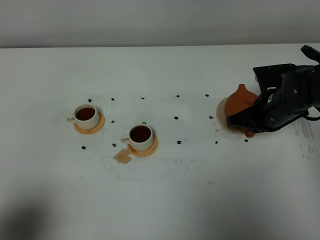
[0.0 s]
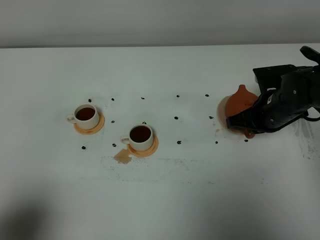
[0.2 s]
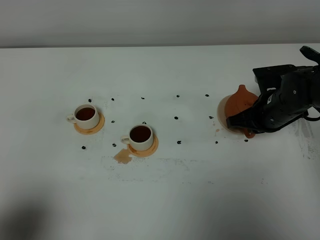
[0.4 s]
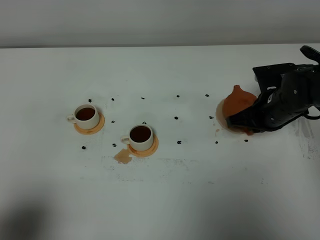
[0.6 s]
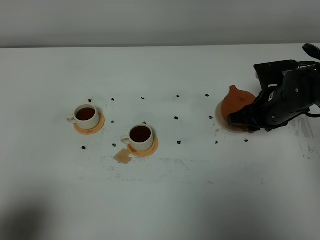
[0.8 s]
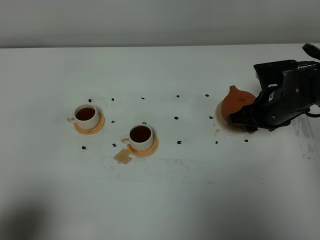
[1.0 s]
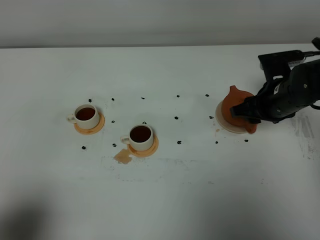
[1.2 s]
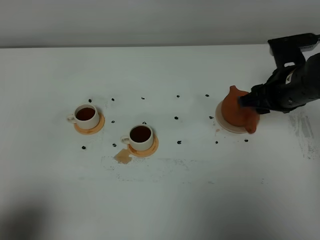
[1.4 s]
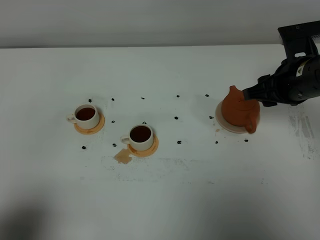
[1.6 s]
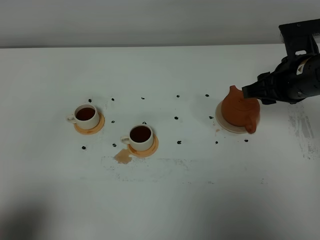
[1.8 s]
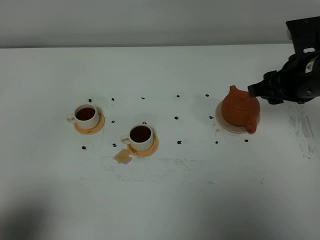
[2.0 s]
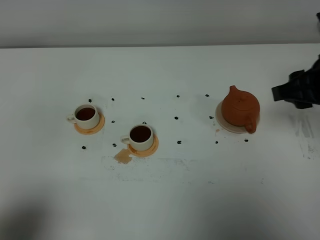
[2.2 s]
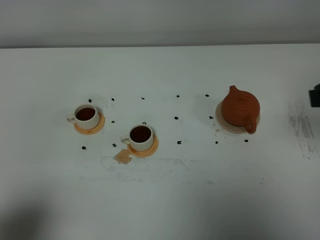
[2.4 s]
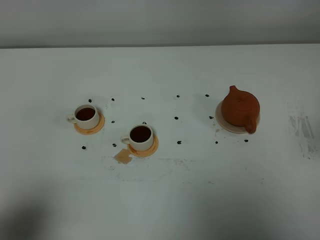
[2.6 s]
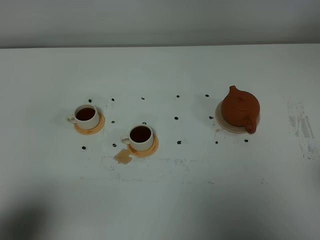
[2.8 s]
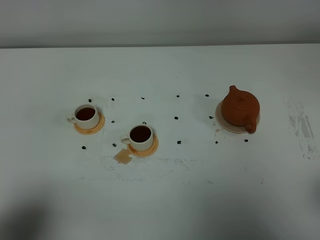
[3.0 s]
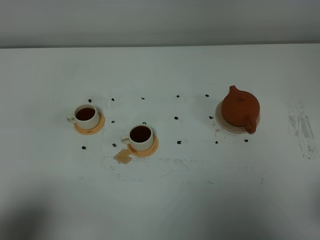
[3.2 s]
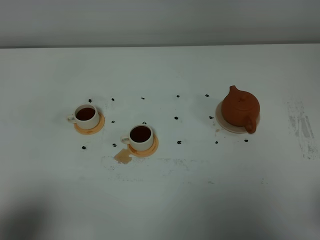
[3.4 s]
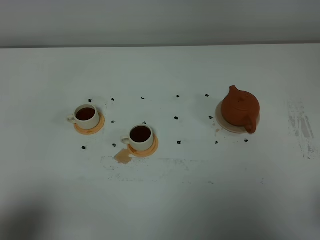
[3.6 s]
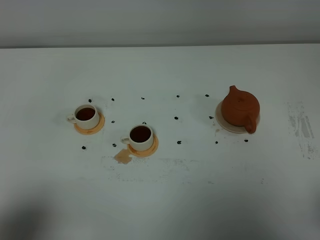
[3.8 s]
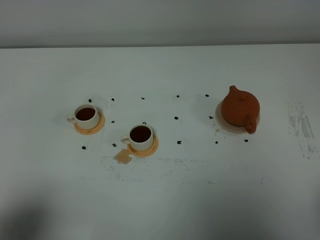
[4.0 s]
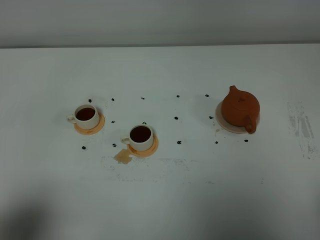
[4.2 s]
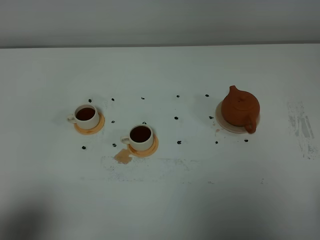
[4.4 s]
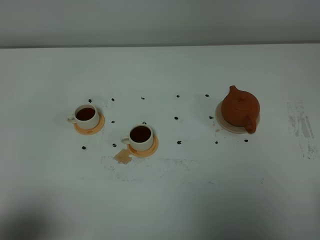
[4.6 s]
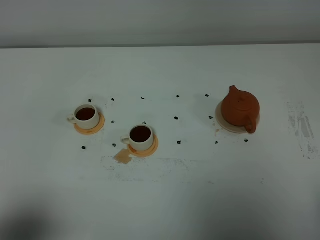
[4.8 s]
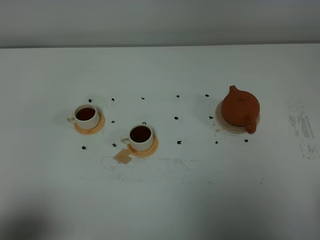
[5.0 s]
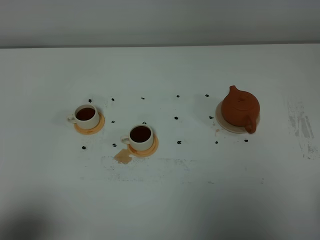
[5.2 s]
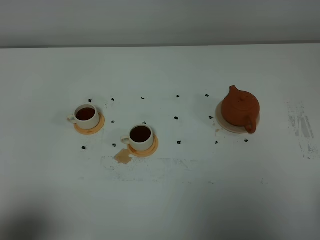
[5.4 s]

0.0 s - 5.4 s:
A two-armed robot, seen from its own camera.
Task of the whole recording: grasp the brown teapot and pour the tea into the two white teacups one by one, put the brown teapot back in its original place.
0.0 s - 1.4 s: The right gripper travels upward by some 5 cm, and opens up.
1.4 s - 2.8 s: The right gripper is displaced backward and upward by approximately 30 cm.

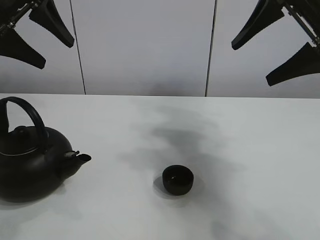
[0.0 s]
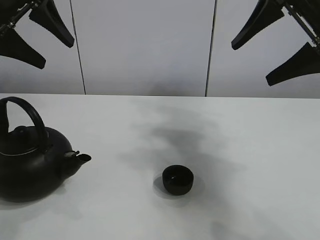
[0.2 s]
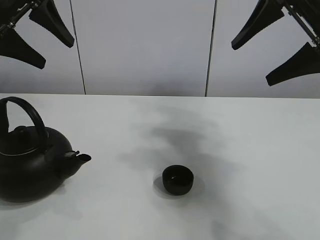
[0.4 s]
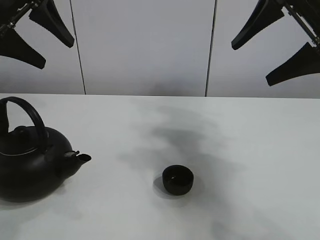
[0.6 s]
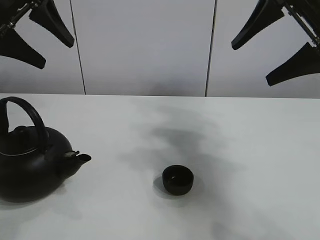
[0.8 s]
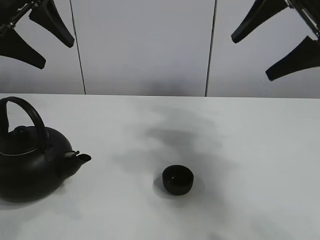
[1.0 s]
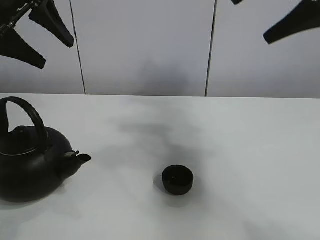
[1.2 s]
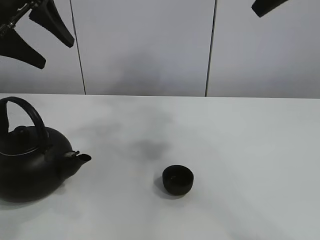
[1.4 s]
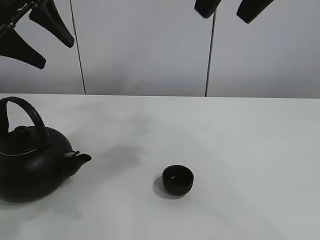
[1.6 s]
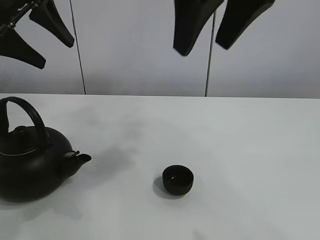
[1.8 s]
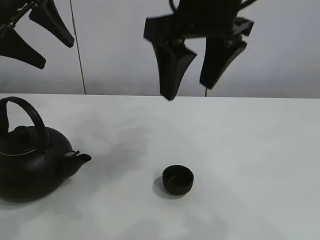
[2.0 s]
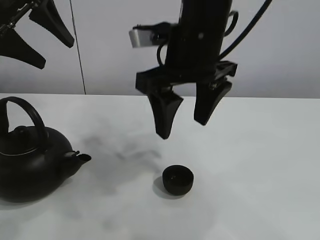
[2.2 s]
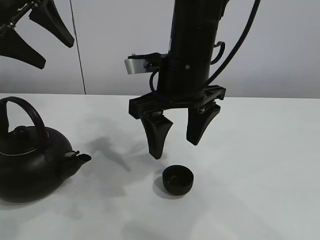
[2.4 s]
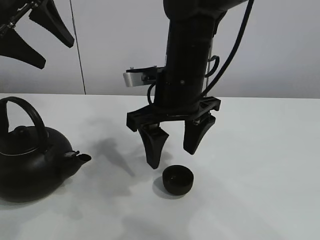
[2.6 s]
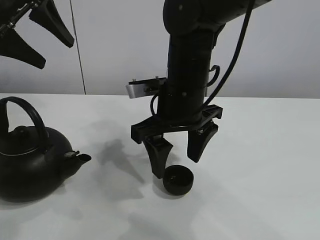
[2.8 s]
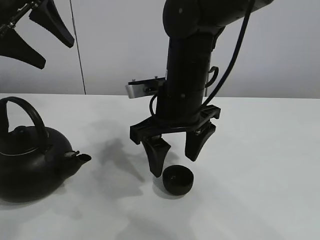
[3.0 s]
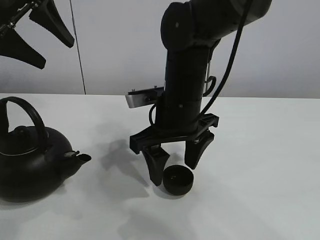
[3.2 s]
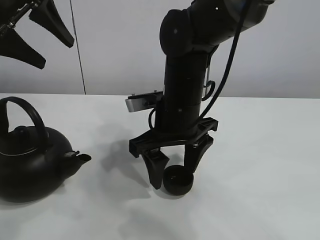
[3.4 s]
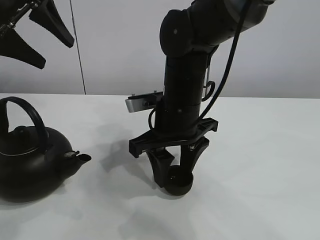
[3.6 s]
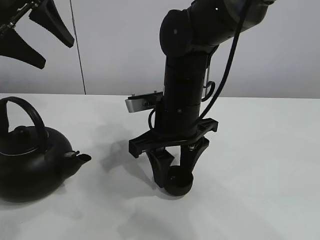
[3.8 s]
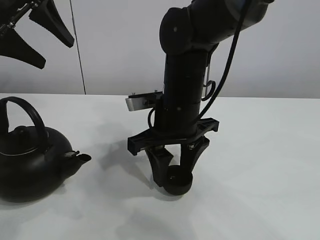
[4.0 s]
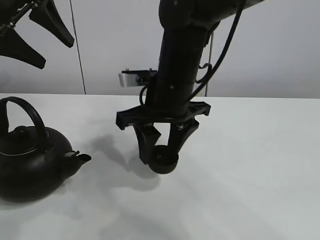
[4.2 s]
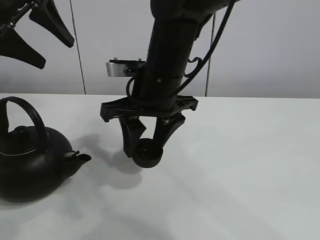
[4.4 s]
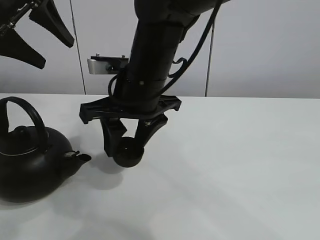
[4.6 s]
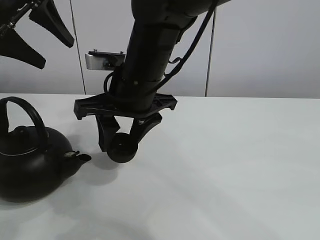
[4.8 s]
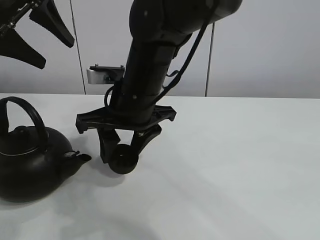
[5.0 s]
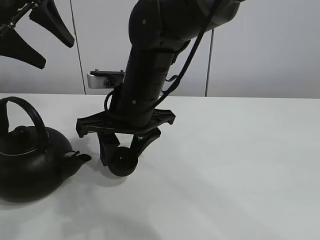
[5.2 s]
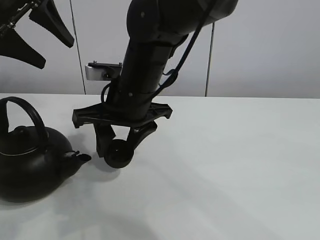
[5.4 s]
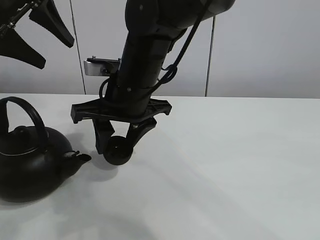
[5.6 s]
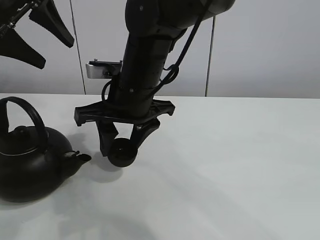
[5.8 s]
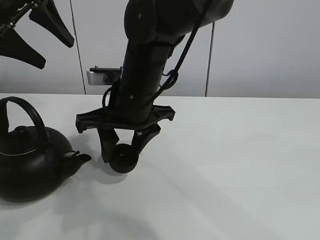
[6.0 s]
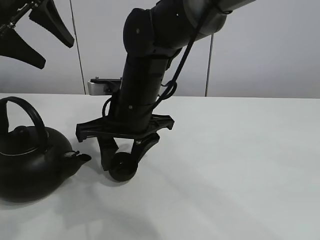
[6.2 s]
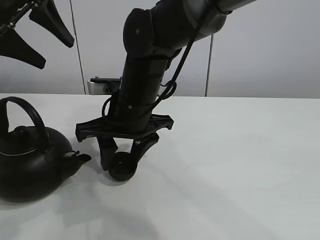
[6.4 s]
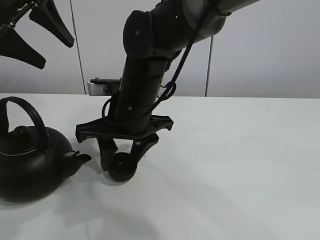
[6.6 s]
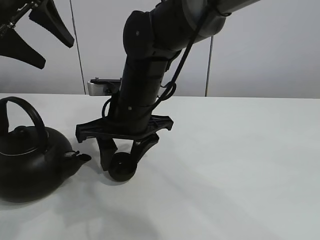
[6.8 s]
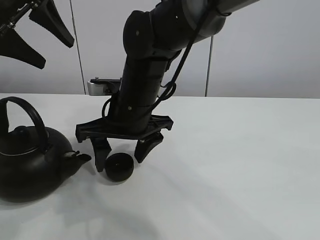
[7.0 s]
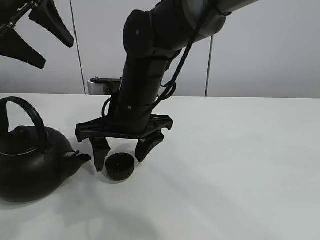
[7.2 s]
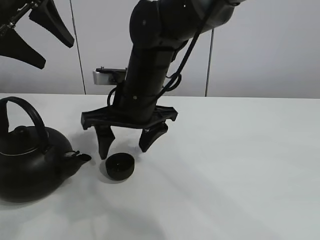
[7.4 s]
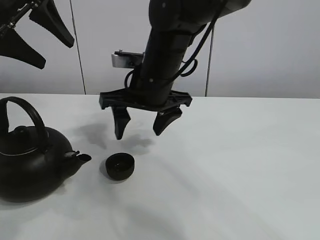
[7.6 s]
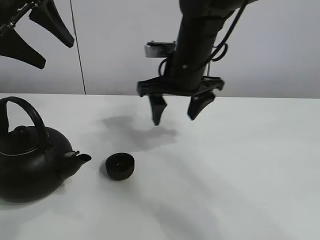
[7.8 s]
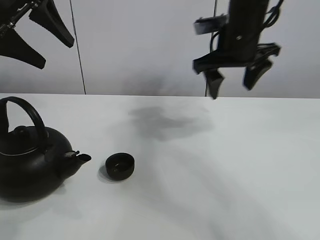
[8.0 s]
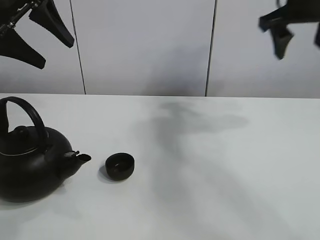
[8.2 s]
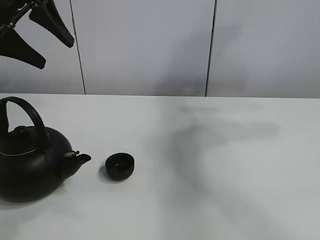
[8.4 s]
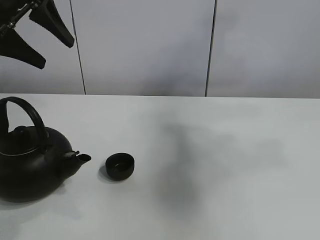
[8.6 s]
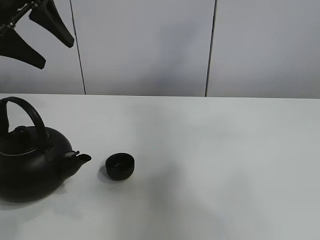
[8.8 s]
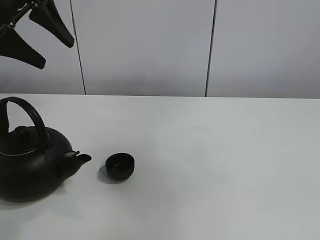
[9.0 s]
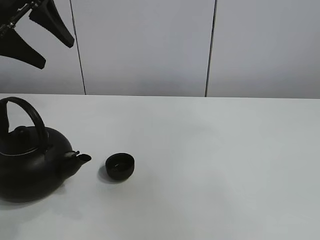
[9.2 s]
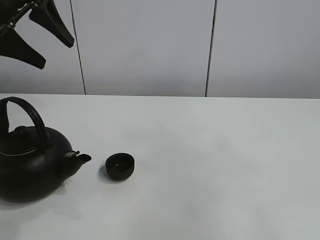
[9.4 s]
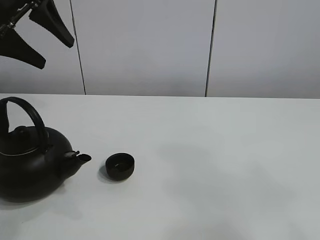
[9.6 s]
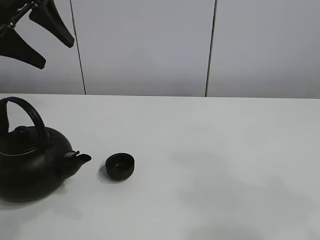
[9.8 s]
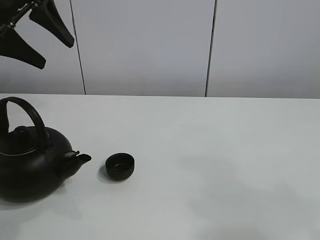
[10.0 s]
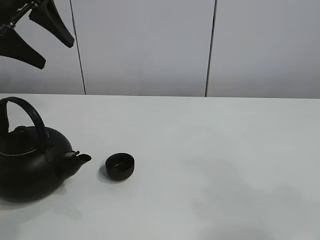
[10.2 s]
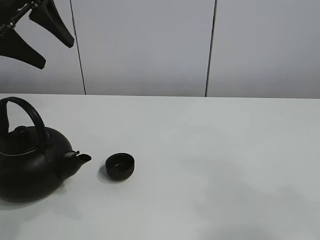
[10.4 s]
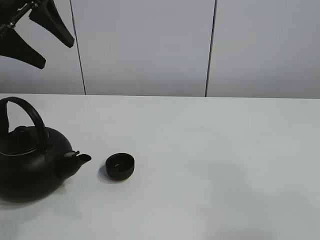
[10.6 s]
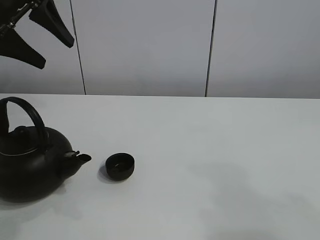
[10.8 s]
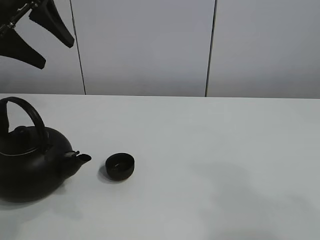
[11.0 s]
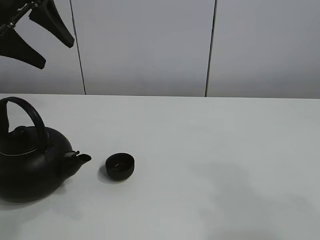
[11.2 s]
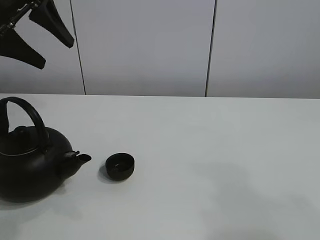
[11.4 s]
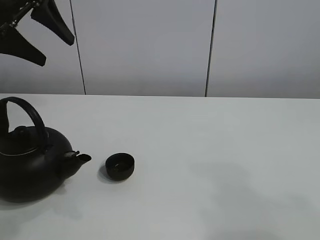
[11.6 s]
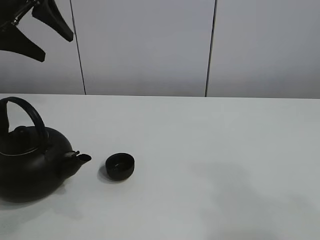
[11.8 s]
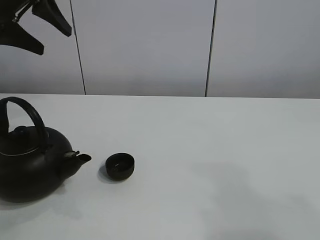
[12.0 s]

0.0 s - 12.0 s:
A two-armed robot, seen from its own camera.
Task of the whole recording: pour tea into the teacup.
Step, 0.0 s - 3.8 s: Pick up the teacup with the right gripper.
Step, 4.0 s - 7.0 s: Place the teacup in the center of view with the right gripper.
1.6 s - 3.0 s: The right gripper moves downward, about 20 cm.
3.0 s - 4.4 s: The right gripper closes up.
4.4 s - 6.0 s: There are only small adjustments of the grippers.
6.0 s - 7.6 s: The right gripper opens.
7.6 s - 9.0 s: The right gripper moves upward, backward and to the right, some 60 cm.
9.0 s - 10.4 s: The right gripper heads downward, covering roughly 25 cm.
10.4 s - 12.0 s: The grippers move only a little.

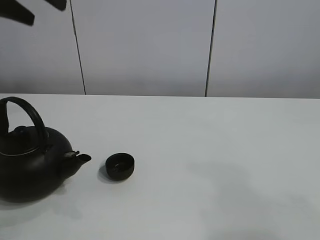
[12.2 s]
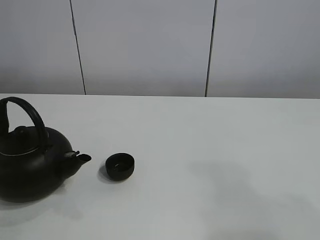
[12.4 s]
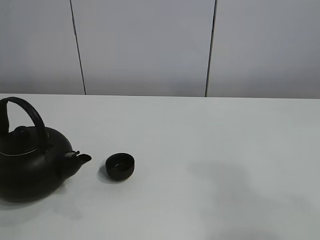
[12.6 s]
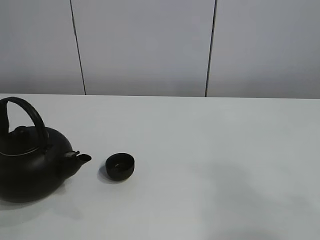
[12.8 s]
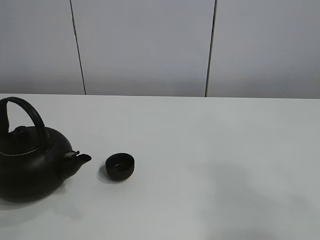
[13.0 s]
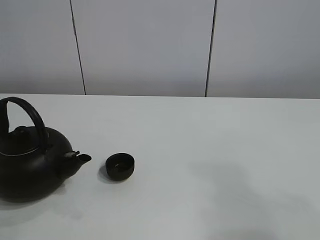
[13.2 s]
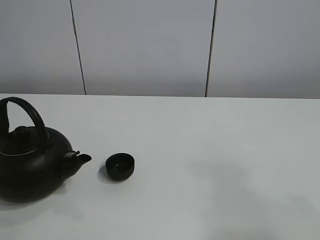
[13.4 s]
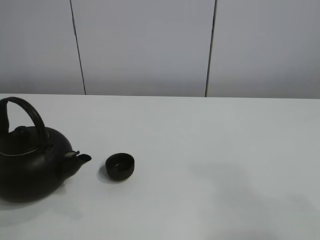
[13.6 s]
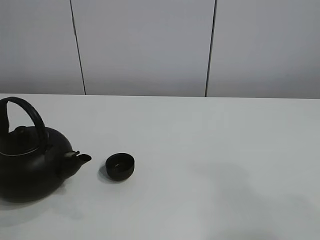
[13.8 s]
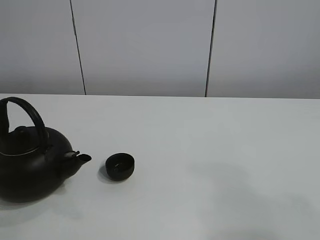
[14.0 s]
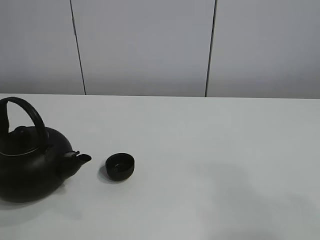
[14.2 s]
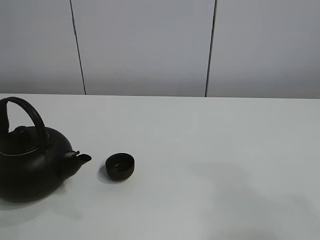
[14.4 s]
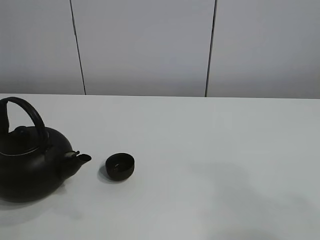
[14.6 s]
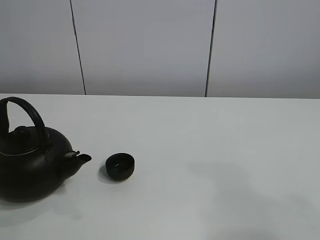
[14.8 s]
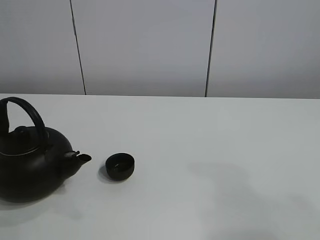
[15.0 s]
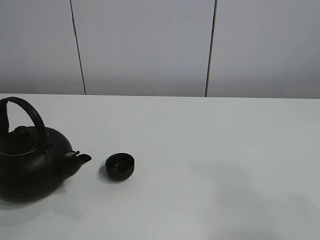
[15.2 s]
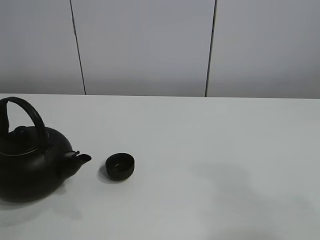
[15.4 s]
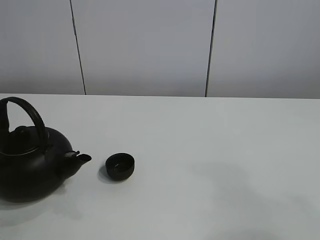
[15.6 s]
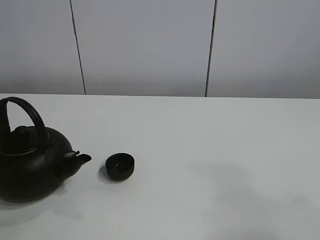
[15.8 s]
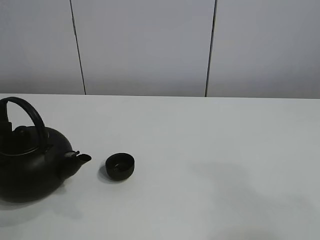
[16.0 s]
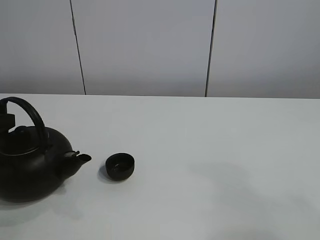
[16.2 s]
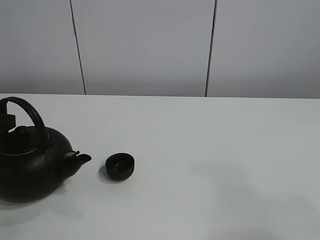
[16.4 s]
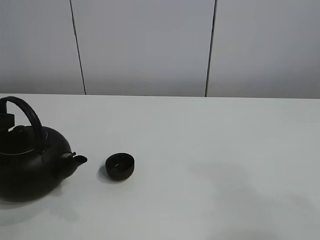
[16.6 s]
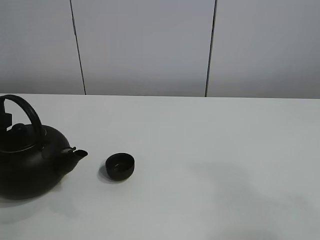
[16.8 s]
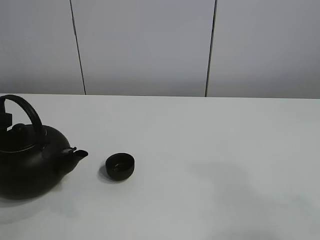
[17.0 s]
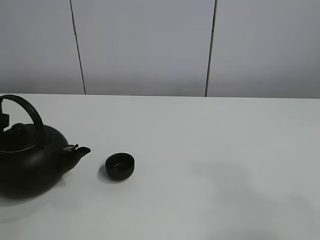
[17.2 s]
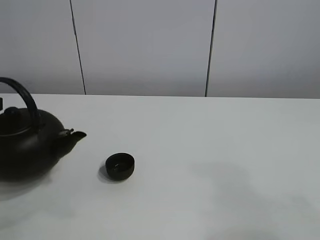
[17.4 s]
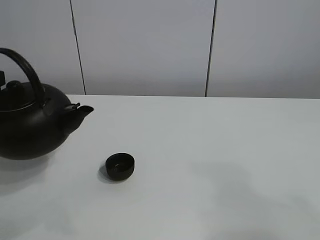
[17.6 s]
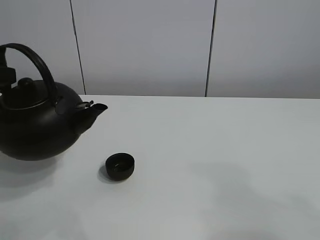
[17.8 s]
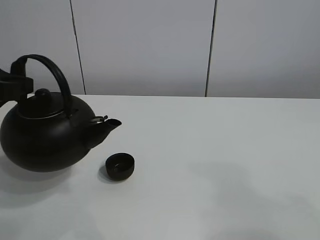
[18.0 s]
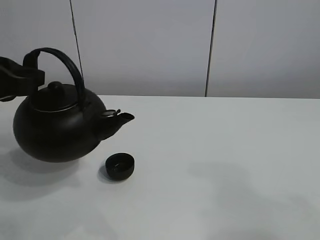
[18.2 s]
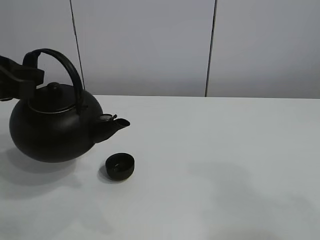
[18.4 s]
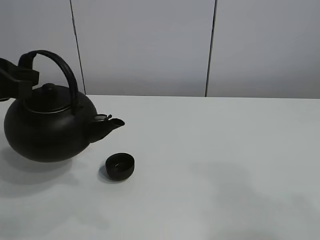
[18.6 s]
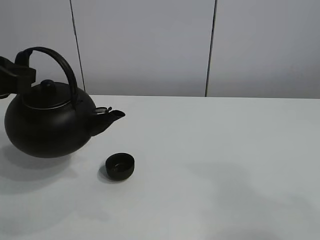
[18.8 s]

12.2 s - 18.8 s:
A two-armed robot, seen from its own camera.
Task of the whole recording: pour tea into the teacup.
Step, 12.2 s - 17.2 s: Pick up the teapot with the left gripper.
12.2 s - 13.8 s: The left gripper heads backward, covering about 20 cm, and goes upward and returns, approximately 15 cm each way.
15.4 s - 17.2 s: The left gripper ends up approximately 5 cm from where it was, and closes its fingers.
17.2 s - 18.8 s: The left gripper is displaced upward and to the right by approximately 10 cm.
